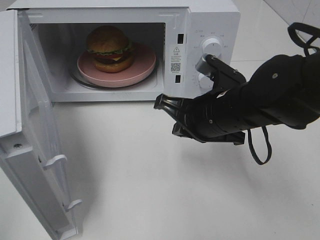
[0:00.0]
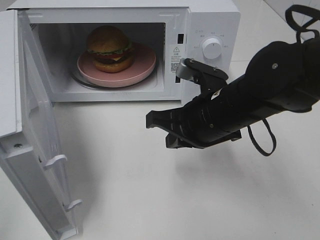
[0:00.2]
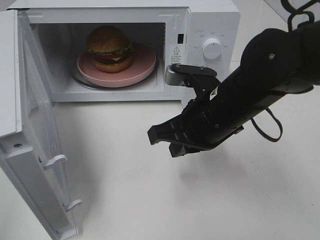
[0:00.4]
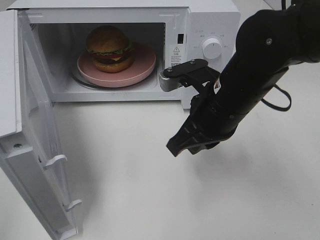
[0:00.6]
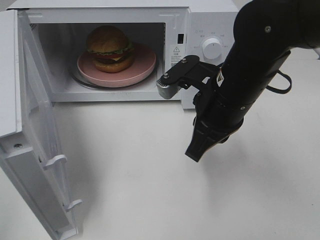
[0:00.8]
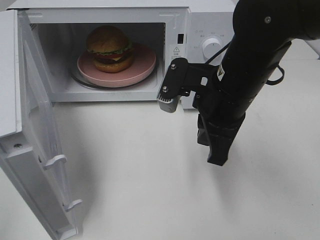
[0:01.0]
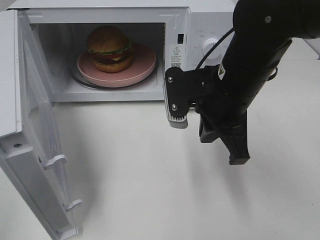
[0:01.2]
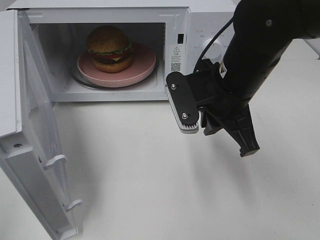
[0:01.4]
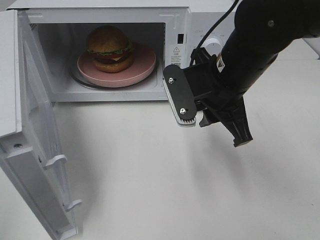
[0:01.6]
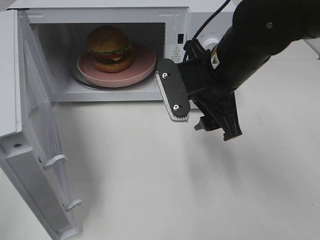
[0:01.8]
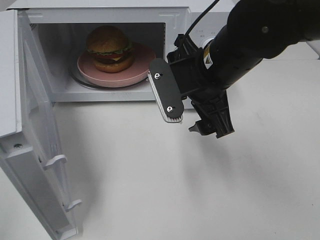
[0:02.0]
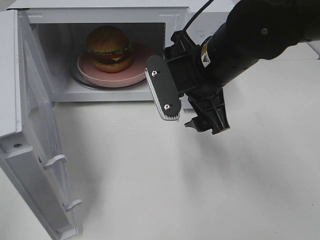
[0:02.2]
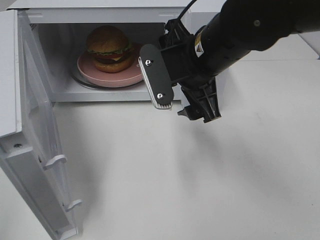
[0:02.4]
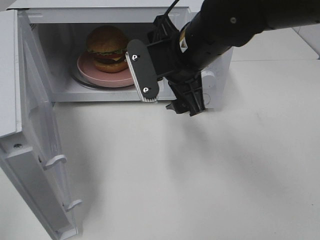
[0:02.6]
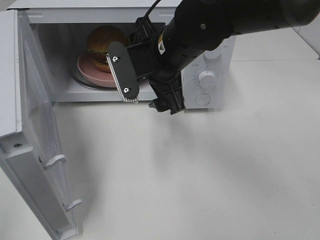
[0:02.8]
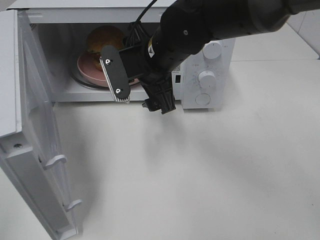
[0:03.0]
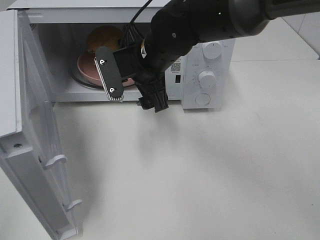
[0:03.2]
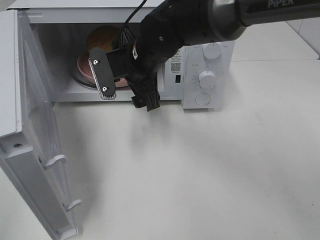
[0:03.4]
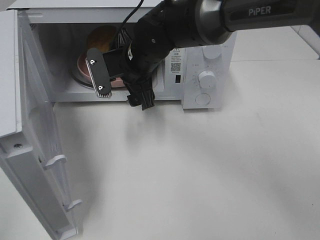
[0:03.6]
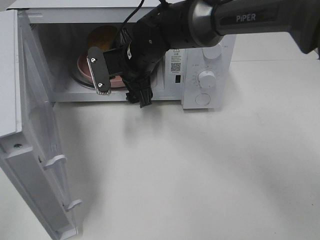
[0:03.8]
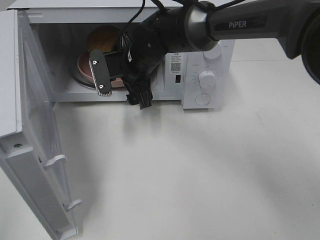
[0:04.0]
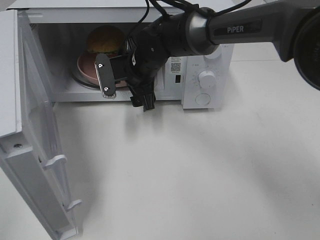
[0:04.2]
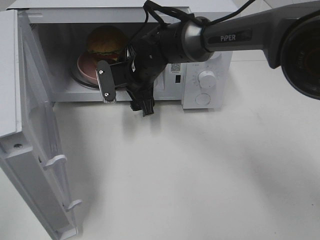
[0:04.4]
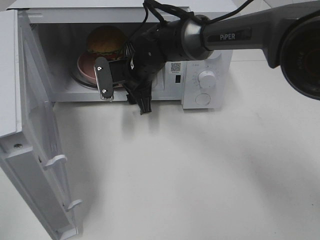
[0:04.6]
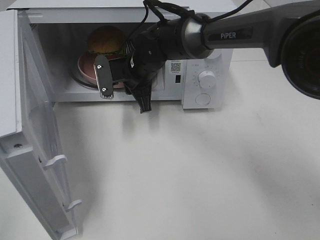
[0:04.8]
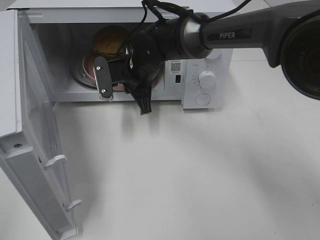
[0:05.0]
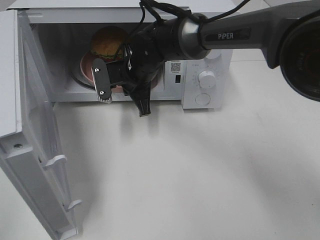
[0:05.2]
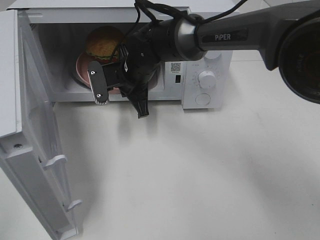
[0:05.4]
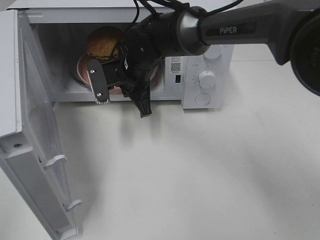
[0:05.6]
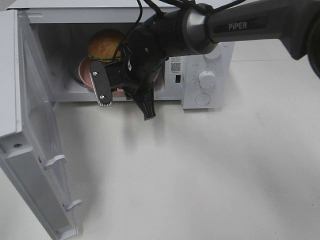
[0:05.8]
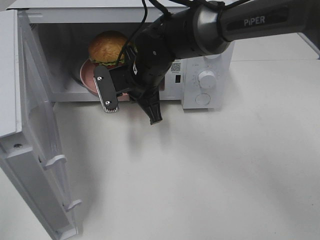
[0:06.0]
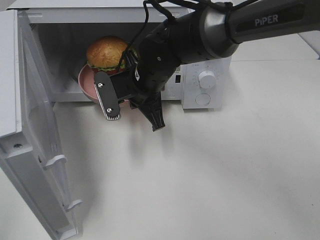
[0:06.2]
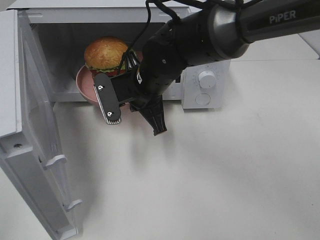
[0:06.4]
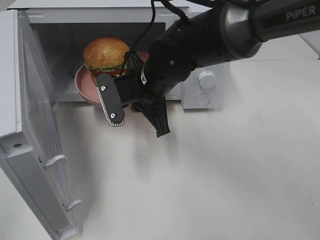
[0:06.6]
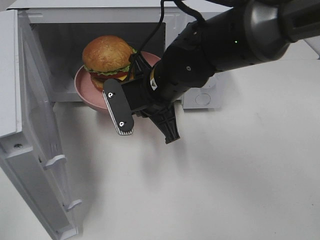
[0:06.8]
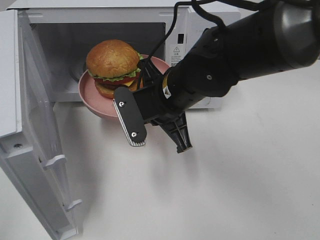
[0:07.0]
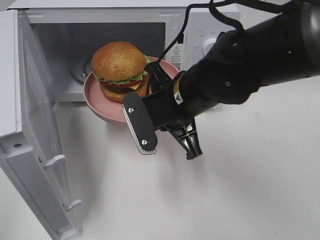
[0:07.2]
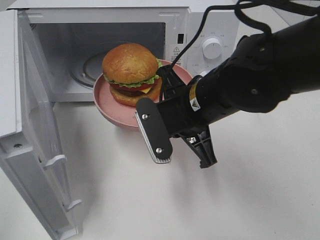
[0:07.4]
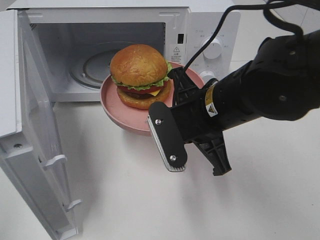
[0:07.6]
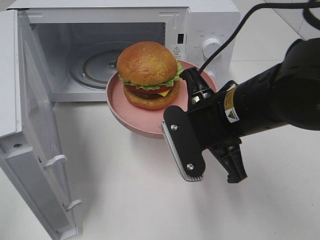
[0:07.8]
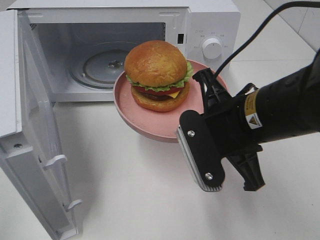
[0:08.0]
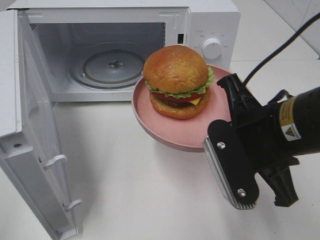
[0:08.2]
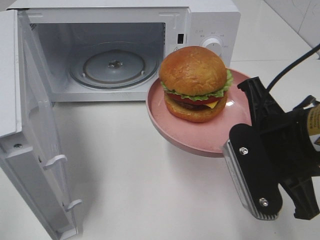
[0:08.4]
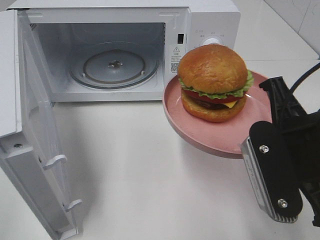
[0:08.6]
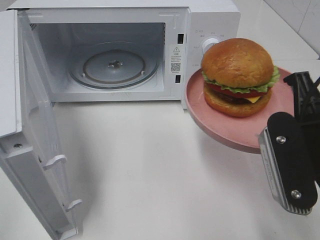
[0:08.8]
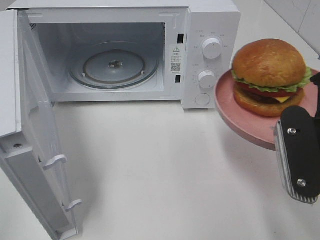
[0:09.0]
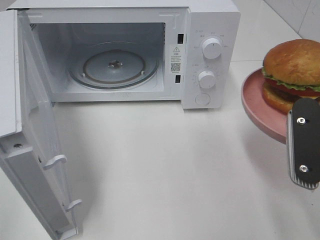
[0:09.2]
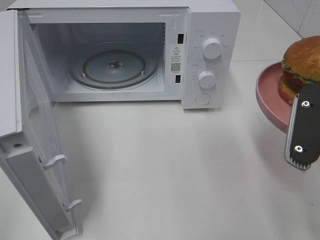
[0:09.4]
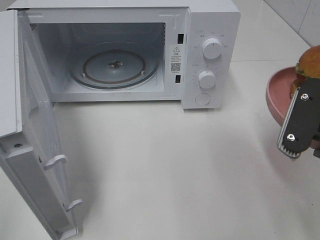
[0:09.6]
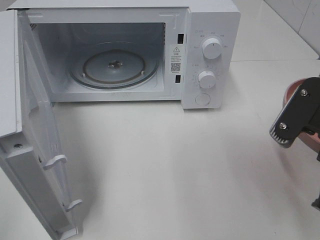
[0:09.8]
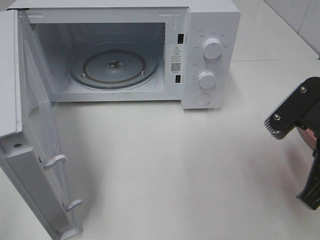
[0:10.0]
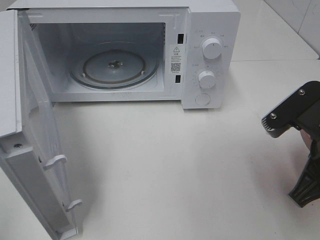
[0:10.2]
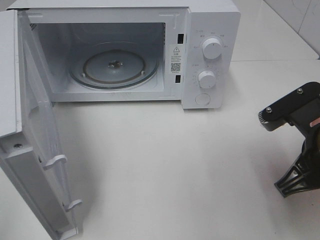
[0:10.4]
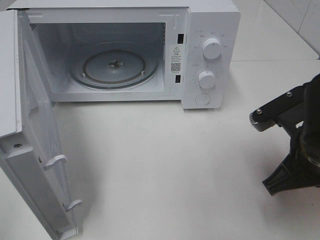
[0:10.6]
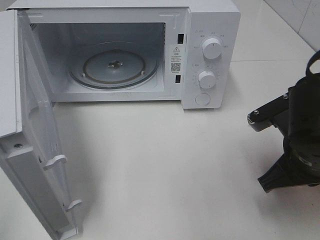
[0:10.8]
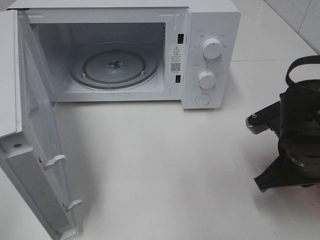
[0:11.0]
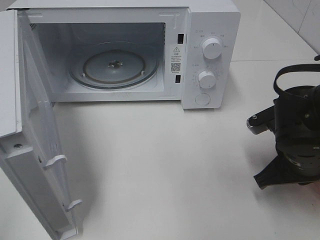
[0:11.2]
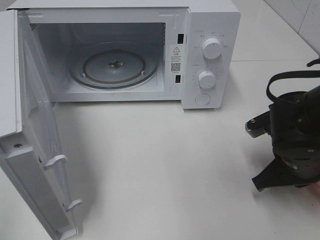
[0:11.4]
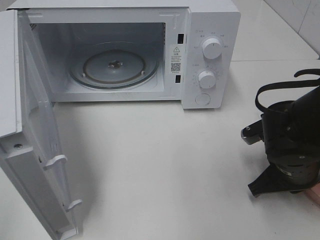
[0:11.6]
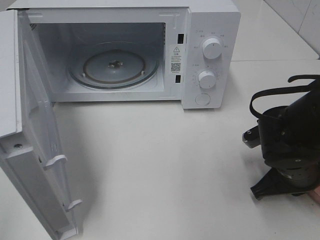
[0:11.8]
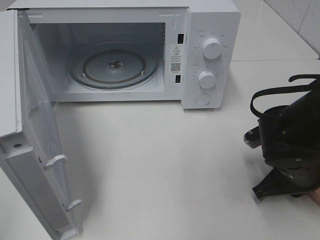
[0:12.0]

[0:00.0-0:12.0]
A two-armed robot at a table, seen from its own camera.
Task of the whole recording: Heat the burger.
Step, 0:00.0 to 0:05.0: Right hand: grab the plate with the hamburger.
0:00.0 to 0:01.6: The right gripper goes some 5 cm upward.
0:01.6 to 0:03.0: The right gripper shifts some 10 cm to the left and forward, and opens.
0:03.0 to 0:04.4: The right gripper is displaced forward and downward by approximately 10 cm.
0:04.4 to 0:06.0: The right gripper shifts by roughly 5 cm, and closes up.
0:06.0 to 0:07.6: The right gripper travels backward and to the right by about 15 cm.
0:07.6 to 0:09.0: The right gripper goes roughly 15 cm to the right and backward.
0:09.0 to 0:10.4: The right gripper goes some 5 cm downward.
0:10.4 to 0:12.0: The right gripper heads downward, covering roughly 10 cm.

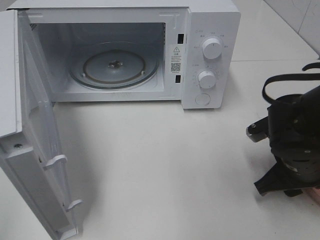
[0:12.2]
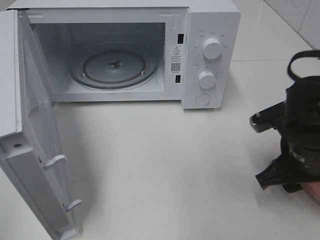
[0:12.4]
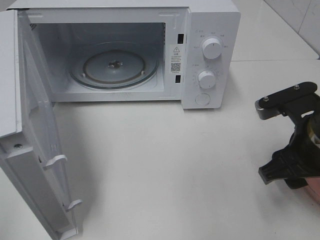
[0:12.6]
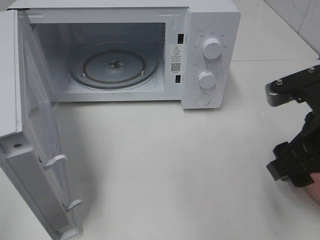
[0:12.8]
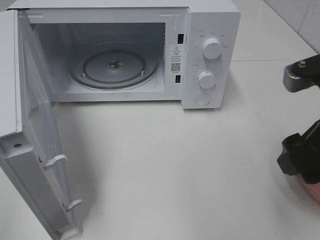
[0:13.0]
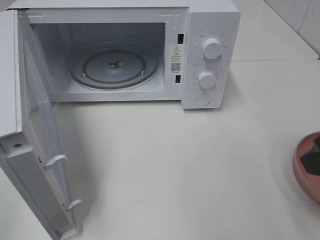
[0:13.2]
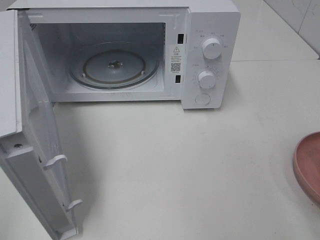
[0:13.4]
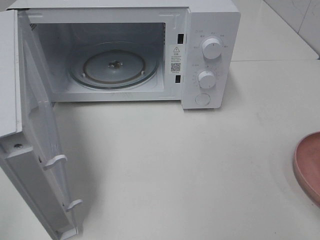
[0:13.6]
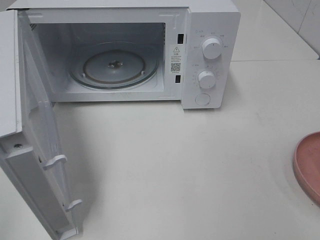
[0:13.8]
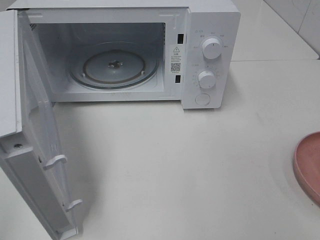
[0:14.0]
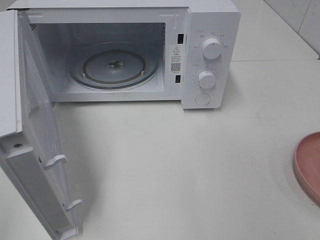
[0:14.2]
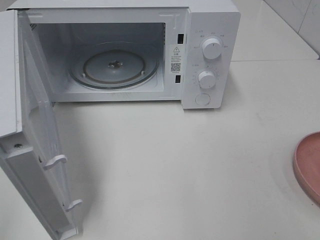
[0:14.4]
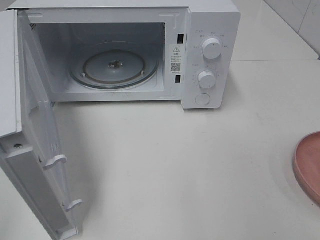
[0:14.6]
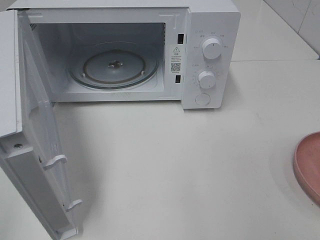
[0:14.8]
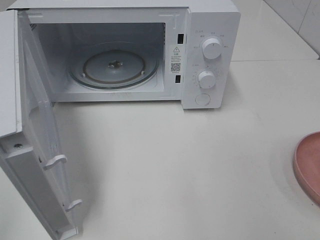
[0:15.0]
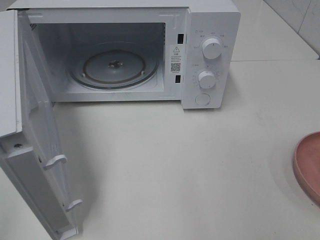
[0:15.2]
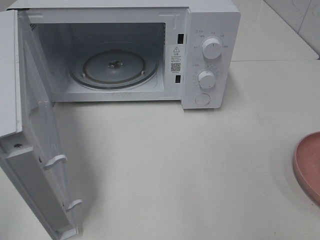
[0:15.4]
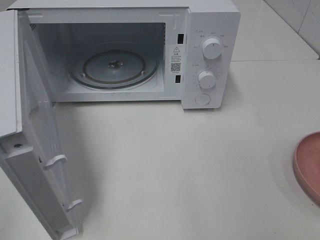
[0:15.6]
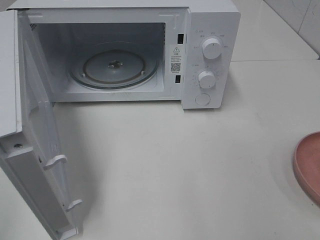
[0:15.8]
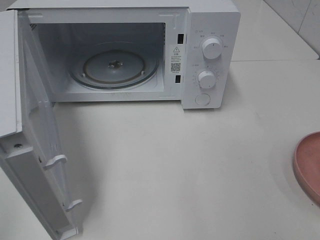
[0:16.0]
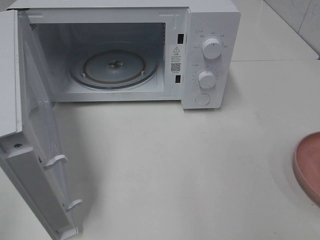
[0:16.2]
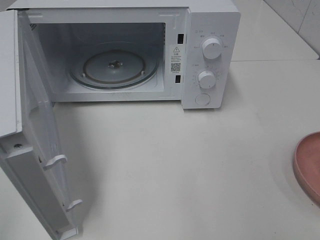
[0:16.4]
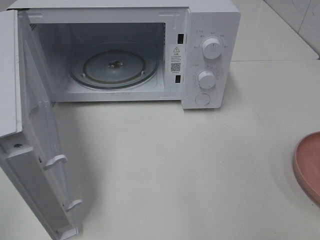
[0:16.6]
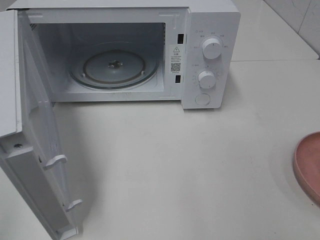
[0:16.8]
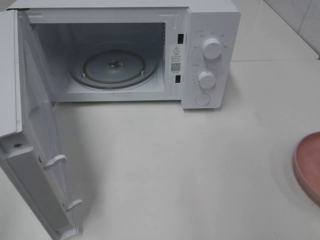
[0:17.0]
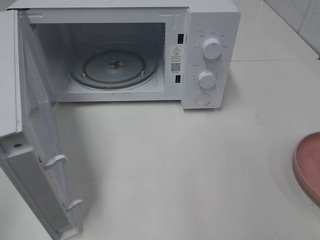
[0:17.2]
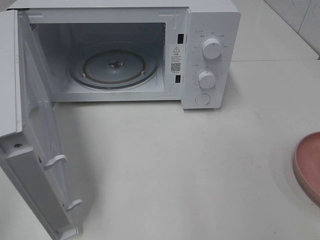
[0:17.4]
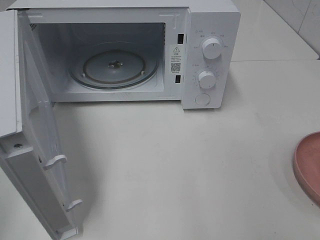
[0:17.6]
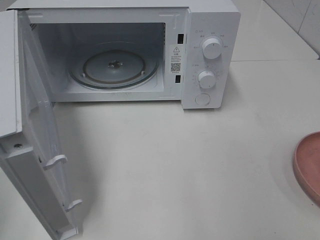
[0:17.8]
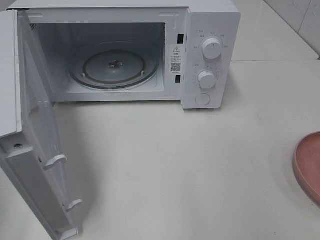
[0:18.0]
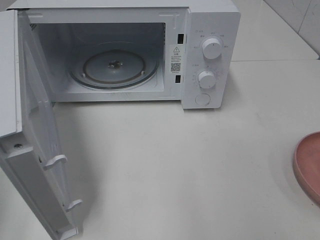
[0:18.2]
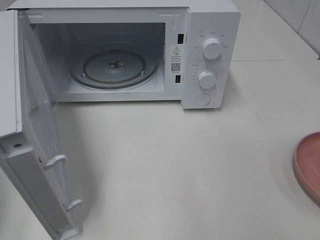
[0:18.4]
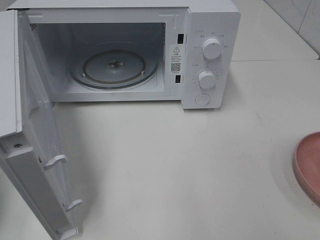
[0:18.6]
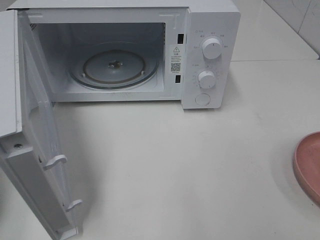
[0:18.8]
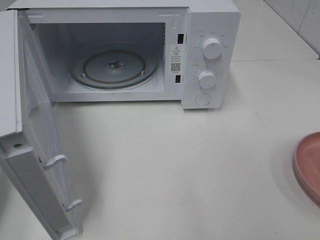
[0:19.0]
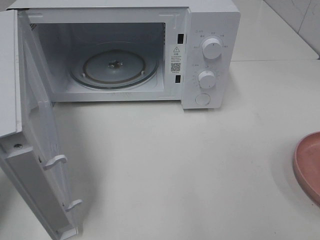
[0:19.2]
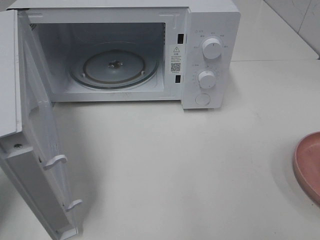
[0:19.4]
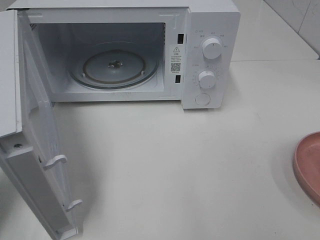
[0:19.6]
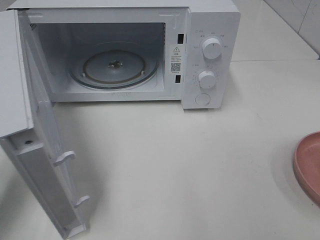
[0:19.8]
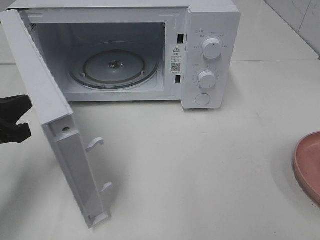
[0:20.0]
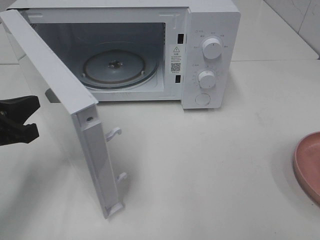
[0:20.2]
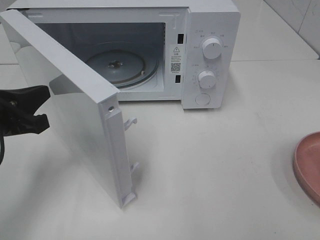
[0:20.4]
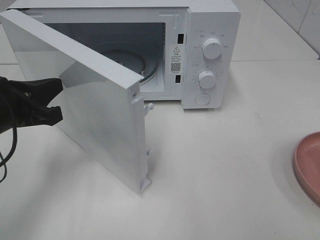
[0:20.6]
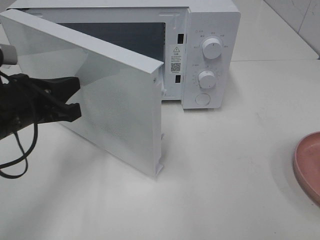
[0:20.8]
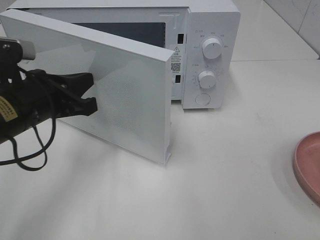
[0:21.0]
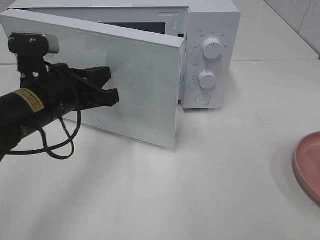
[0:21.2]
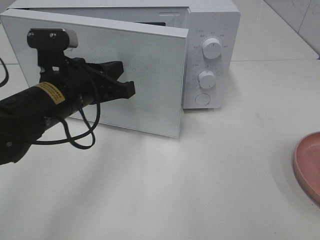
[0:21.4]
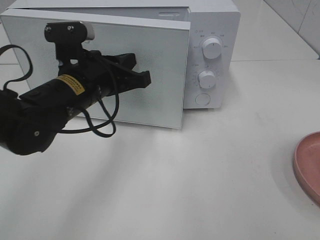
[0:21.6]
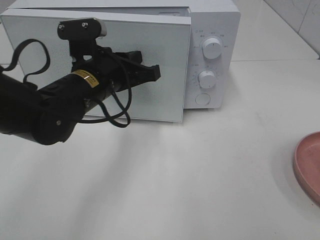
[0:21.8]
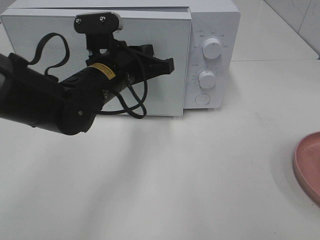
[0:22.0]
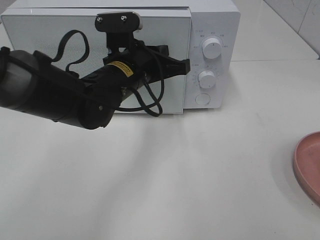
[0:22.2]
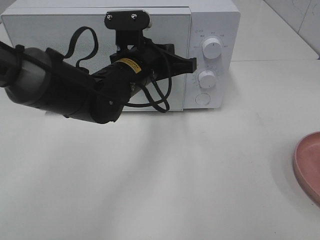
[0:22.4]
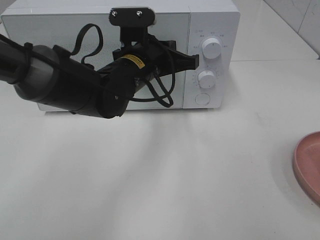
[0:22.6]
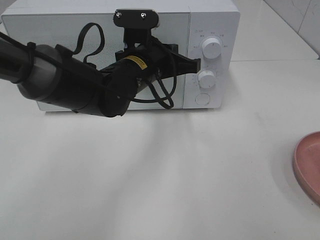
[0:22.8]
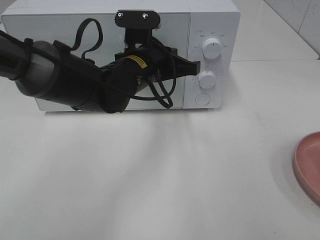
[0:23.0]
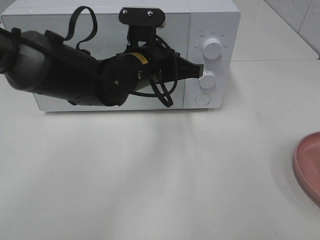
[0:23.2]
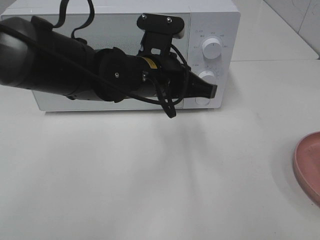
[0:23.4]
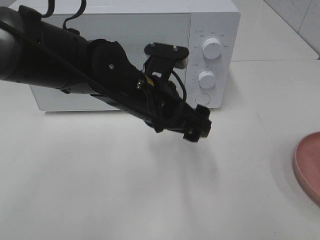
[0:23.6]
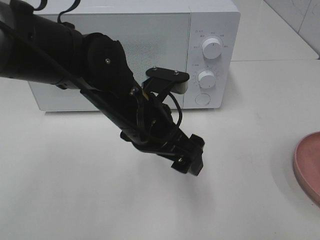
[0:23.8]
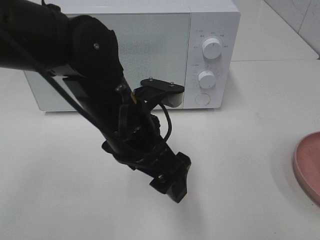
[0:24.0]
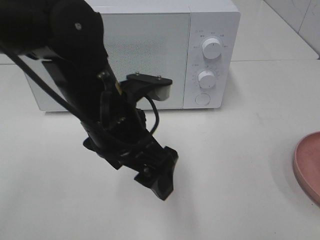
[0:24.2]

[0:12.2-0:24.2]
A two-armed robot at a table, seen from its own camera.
Task of the whole recording: Heat the burger.
Step, 0:12.2 to 0:23.0: Left hand: close the microwave door.
0:12.2 to 0:13.8: The right gripper moves upward, backward and to the right, some 25 cm.
0:15.2 to 0:16.6: Both grippers stay about where they are.
0:18.2 to 0:19.8: The left gripper heads forward, downward and to the right, covering about 15 cm.
0:19.8 to 0:21.2: The left gripper is displaced to the right and forward by about 15 cm.
0:21.2 to 0:22.6: The left gripper shifts approximately 15 cm to the right and forward.
0:22.6 to 0:24.2: The left gripper is displaced backward by roughly 10 cm, and opens.
